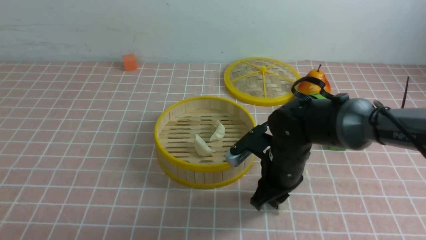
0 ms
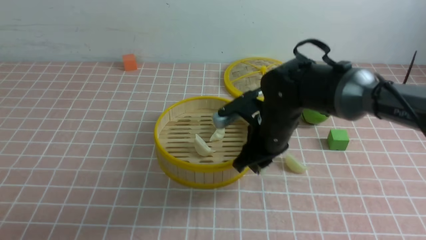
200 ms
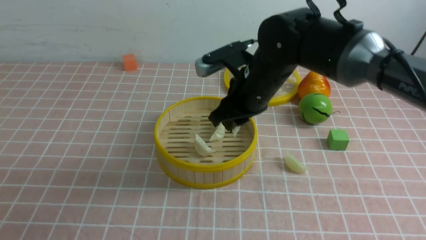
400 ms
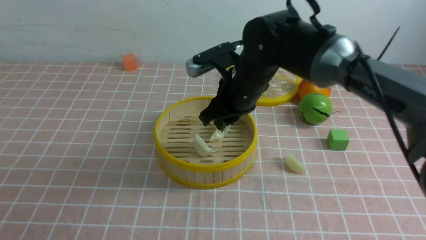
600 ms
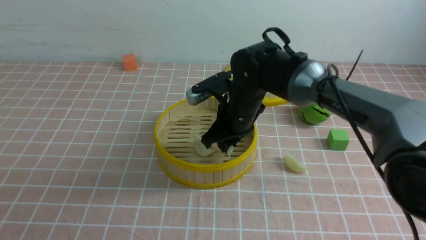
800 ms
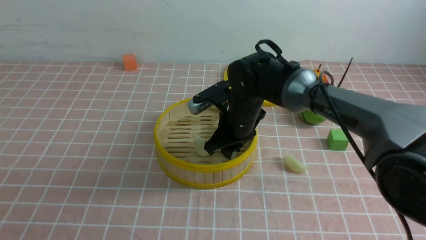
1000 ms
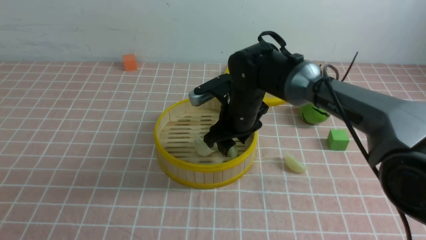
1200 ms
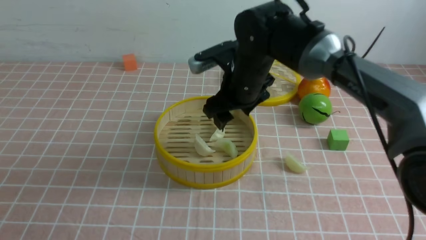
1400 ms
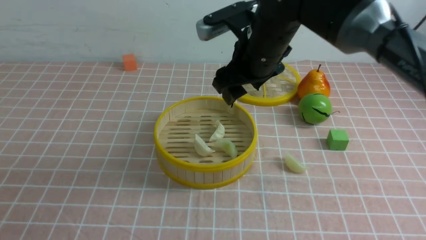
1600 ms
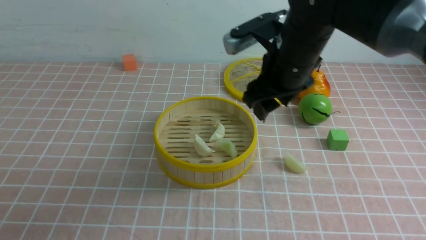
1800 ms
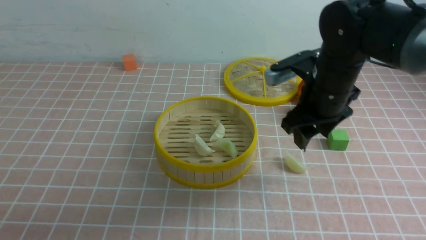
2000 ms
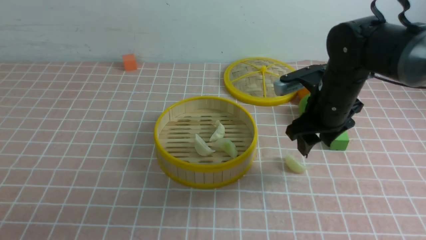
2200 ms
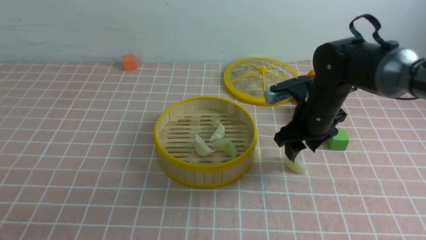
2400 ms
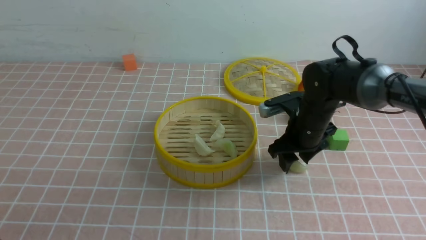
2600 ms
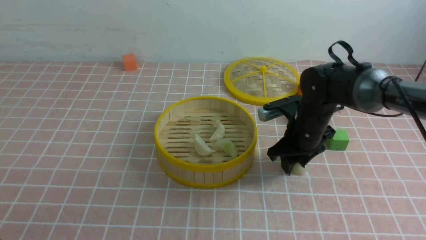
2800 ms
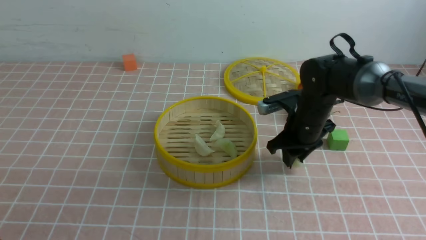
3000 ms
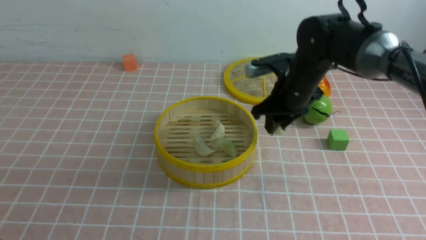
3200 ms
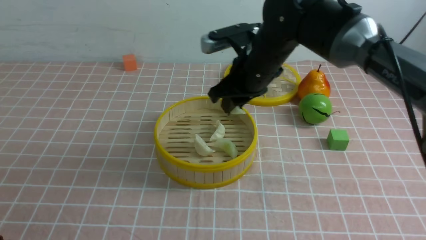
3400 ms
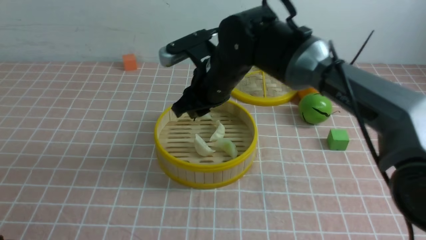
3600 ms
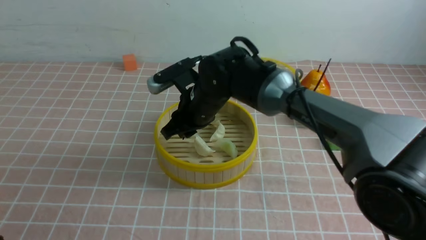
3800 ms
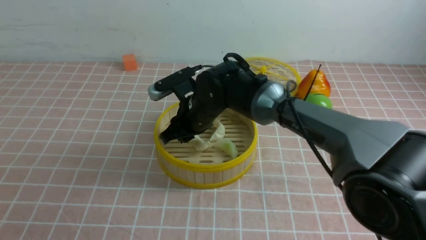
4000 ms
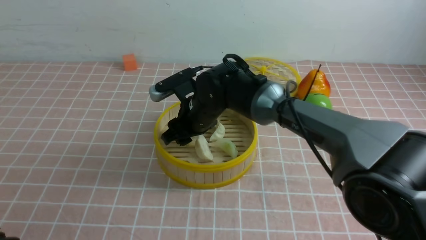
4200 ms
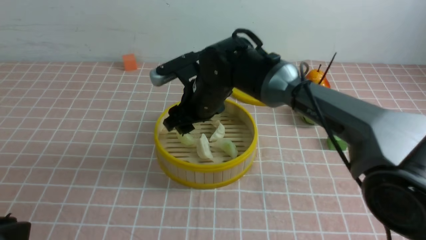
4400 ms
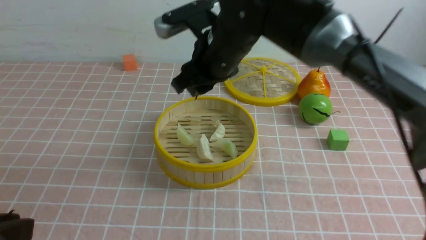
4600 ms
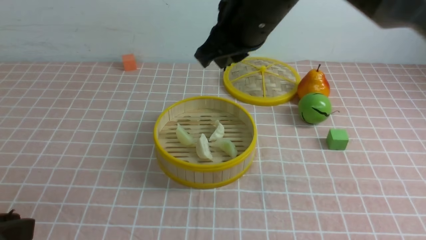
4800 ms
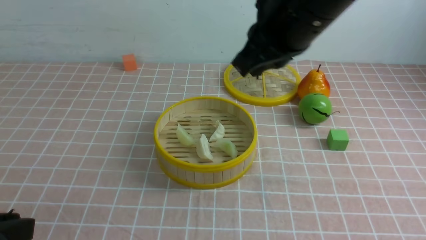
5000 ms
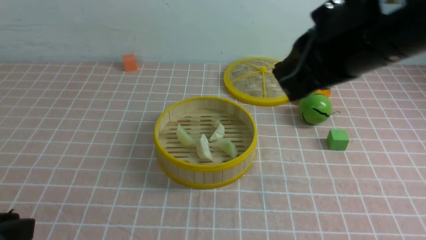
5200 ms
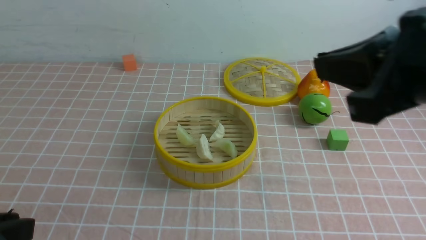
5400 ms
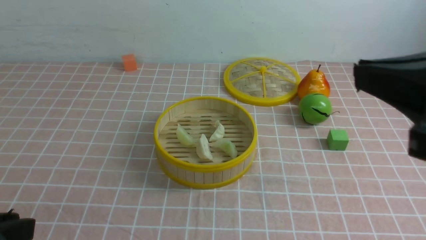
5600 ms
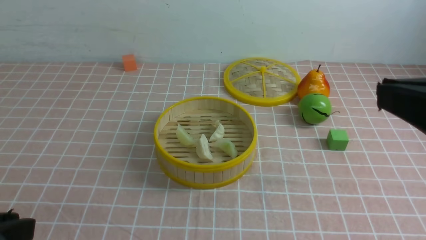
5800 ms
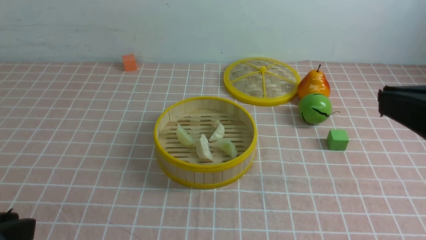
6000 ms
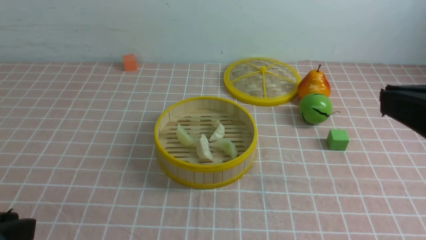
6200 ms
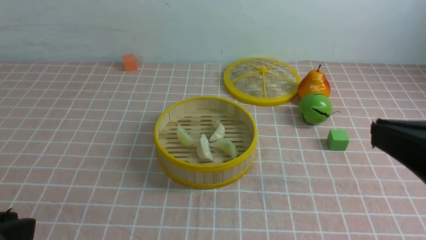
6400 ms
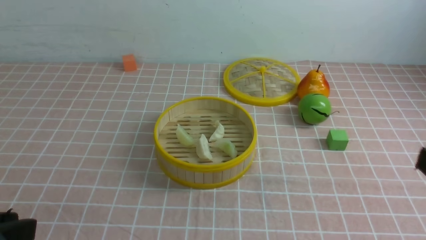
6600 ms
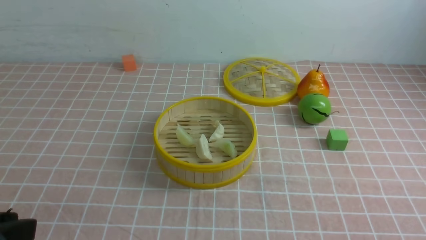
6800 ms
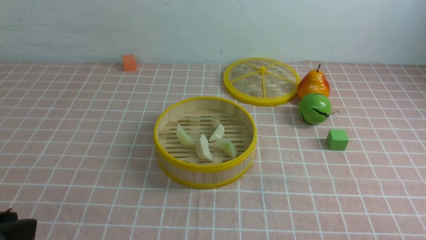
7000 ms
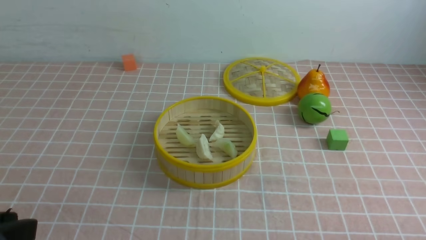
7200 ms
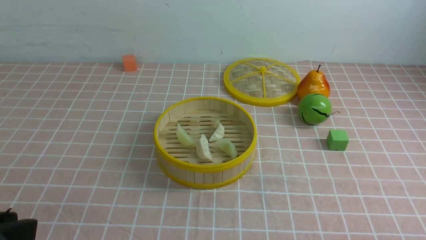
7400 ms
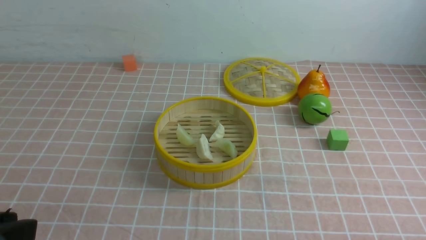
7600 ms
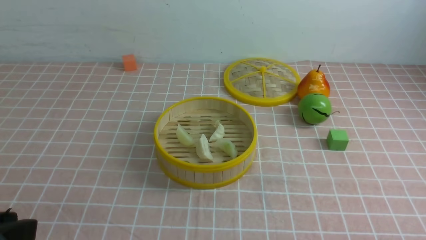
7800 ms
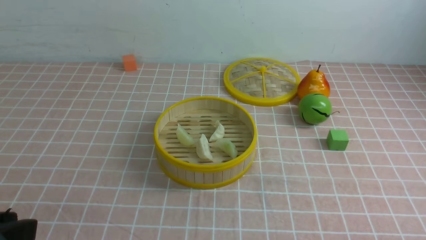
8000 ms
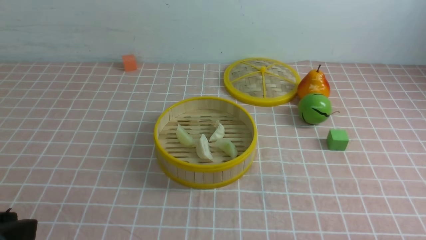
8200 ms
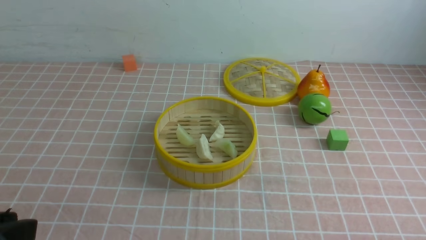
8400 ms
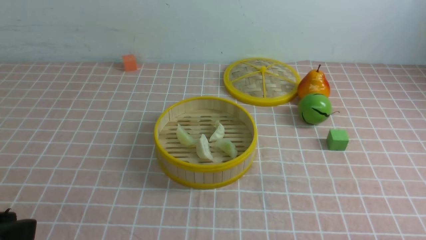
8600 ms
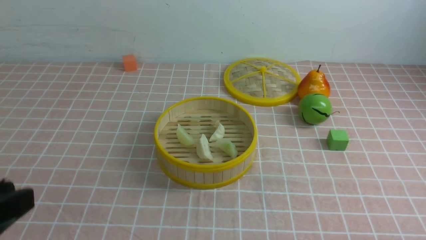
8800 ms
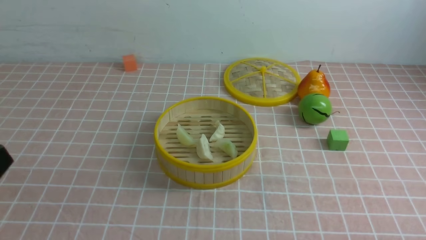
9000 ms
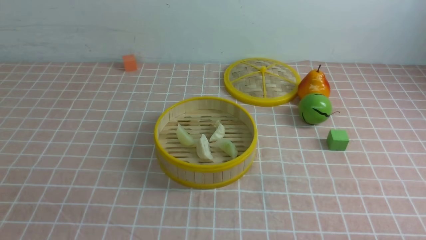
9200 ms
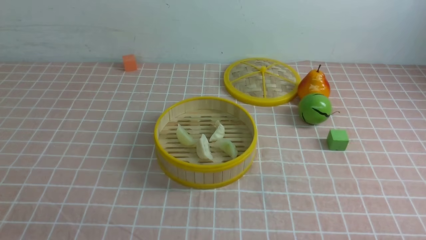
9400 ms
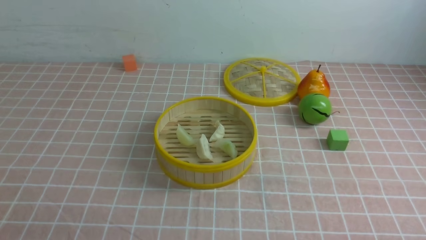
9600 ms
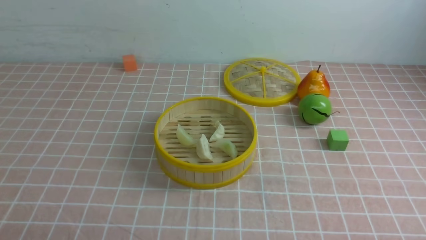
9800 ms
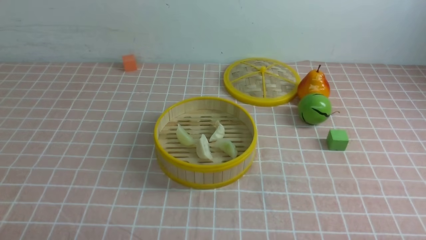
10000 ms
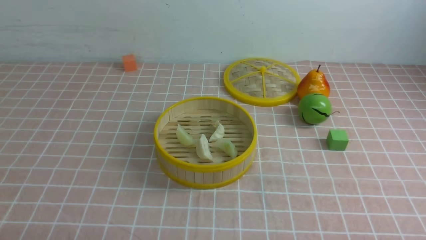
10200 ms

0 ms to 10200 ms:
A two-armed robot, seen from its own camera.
Task of the whole recording: put the dumplings into the steamer on the table with the pink tablecloth.
Step, 200 ms to 1200 ms: use the right arm to put the dumpling into the steamer.
Step, 1400 ms to 3000 ms: use the right arm to grab a dumpling.
Step, 3200 ms to 4400 ms: use the right arm to put the dumpling into the steamer.
0 ms to 1400 ms: The right gripper swings up and down, roughly 10 cm each way, with 2 reversals, and opens up.
1400 ms to 3000 ms: The right gripper is displaced to the right and downward by approximately 15 cm, and closes its fingers.
3000 ms to 4400 ms: The right gripper moves to the left and upward, about 15 cm.
4400 ms to 5800 ms: The right gripper is displaced backward, to the right and upward by some 40 cm, and closes up.
5800 ms to 7200 ms: The right gripper moves downward and to the right, about 25 cm.
7200 ms to 8800 ms: The grippers stay close to where they were, moving slightly.
8800 ms to 10200 ms: The left gripper travels downward by roughly 15 cm, and closes its fingers.

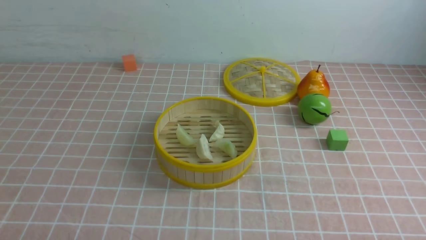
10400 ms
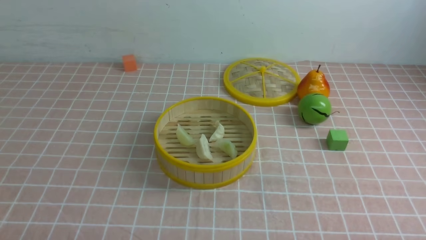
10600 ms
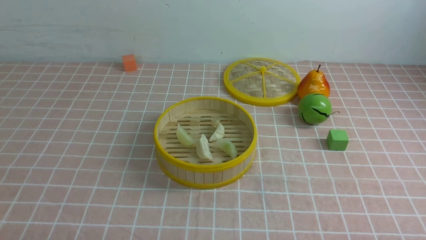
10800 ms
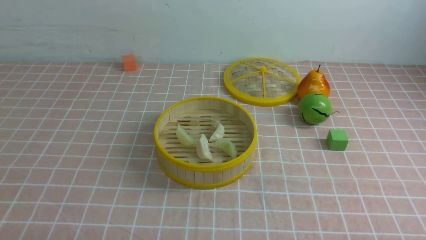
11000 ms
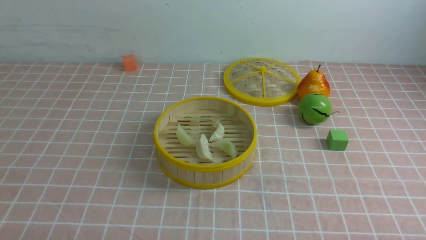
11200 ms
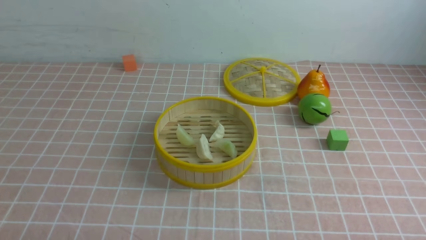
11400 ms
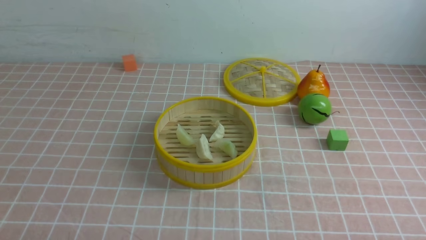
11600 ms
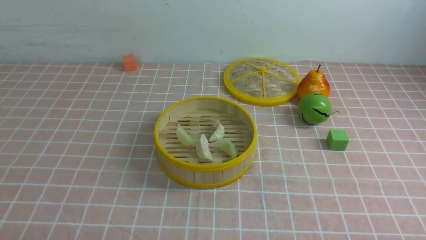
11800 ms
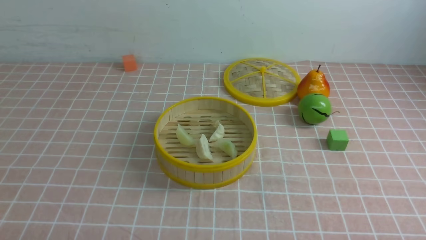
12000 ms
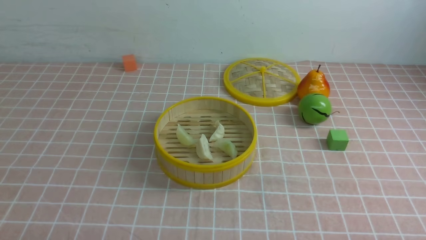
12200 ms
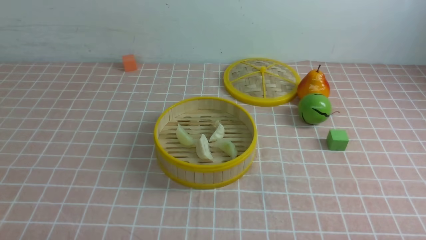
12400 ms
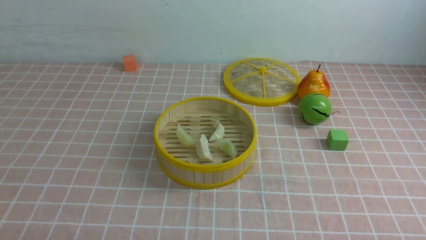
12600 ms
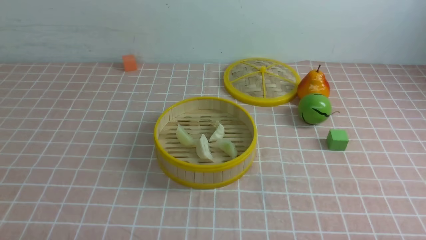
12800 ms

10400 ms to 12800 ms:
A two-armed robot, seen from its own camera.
Task of the whole recording: put the dumplings into the steamer on the table with the pink tablecloth.
10400 ms to 12800 ms: Both grippers stay put.

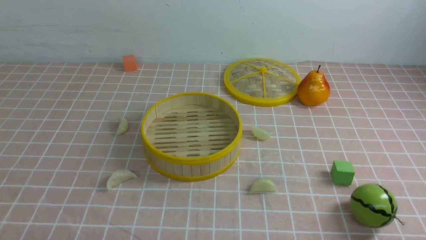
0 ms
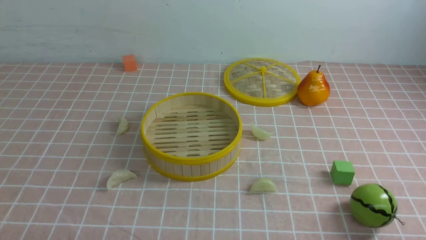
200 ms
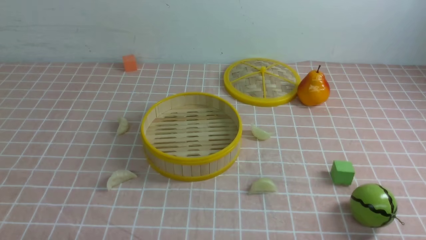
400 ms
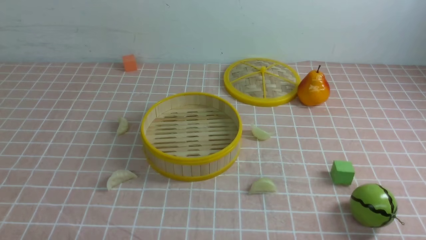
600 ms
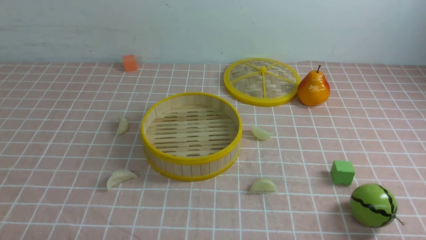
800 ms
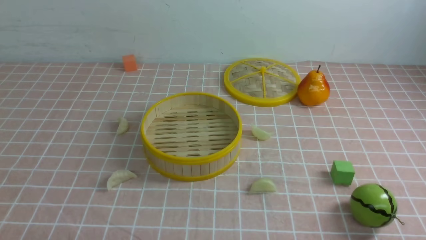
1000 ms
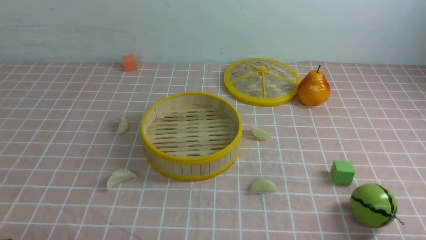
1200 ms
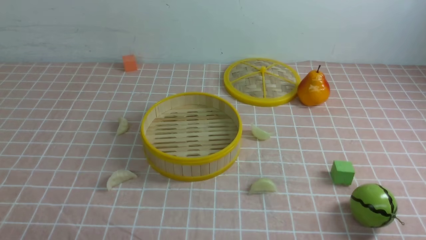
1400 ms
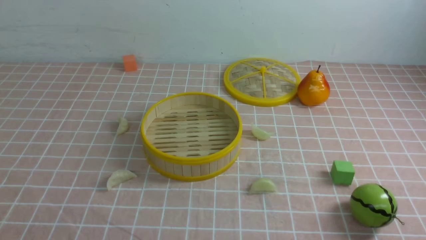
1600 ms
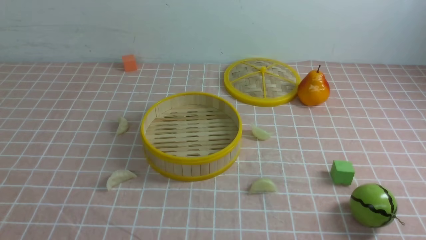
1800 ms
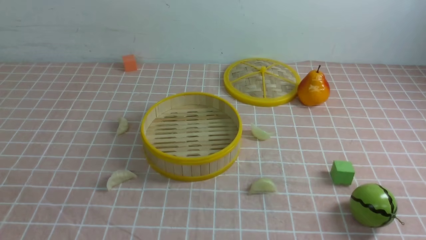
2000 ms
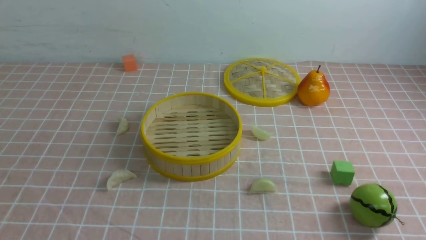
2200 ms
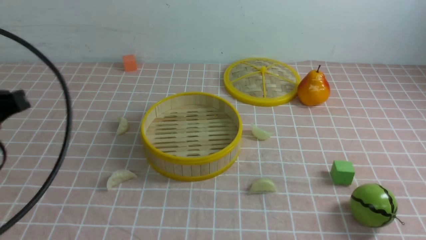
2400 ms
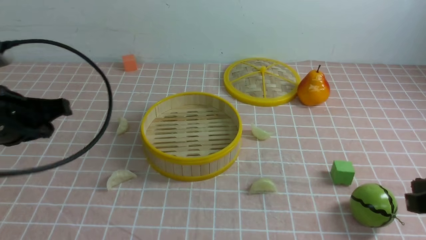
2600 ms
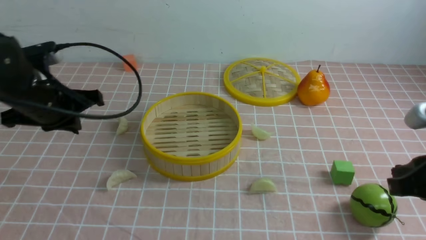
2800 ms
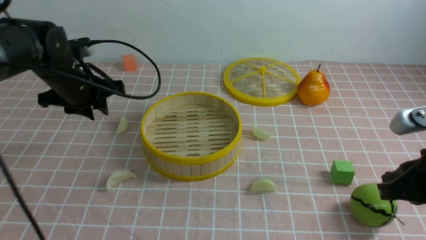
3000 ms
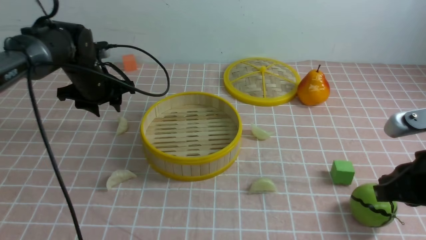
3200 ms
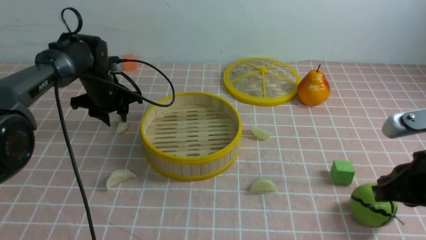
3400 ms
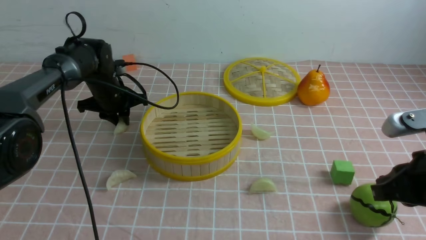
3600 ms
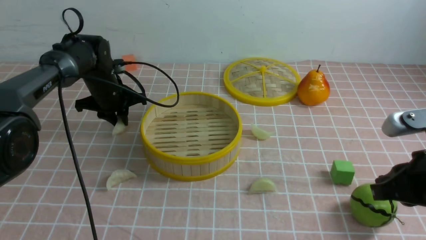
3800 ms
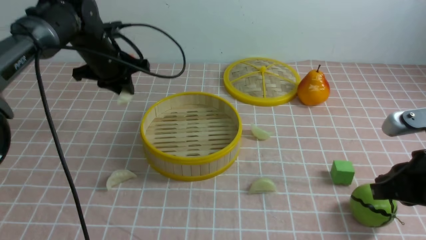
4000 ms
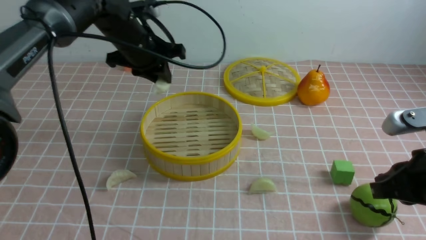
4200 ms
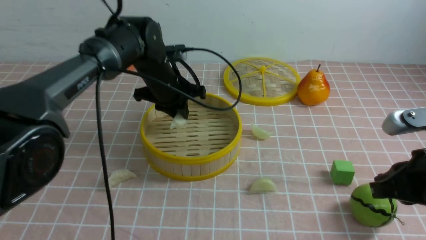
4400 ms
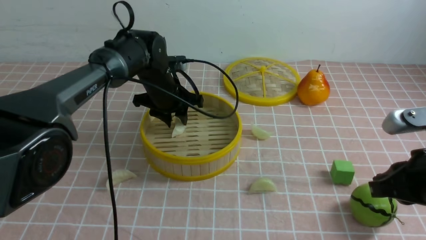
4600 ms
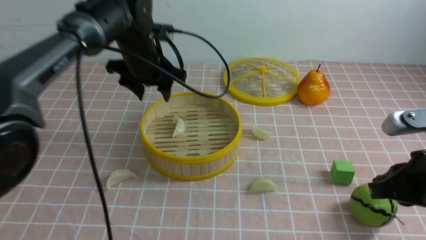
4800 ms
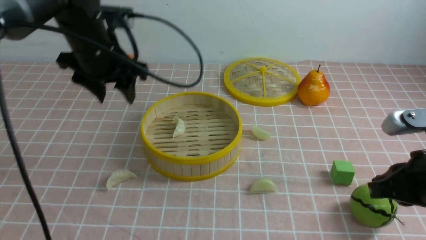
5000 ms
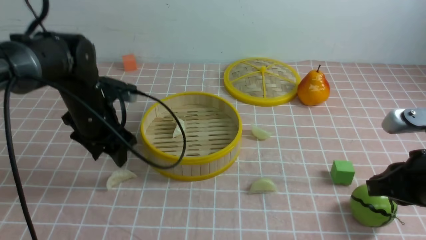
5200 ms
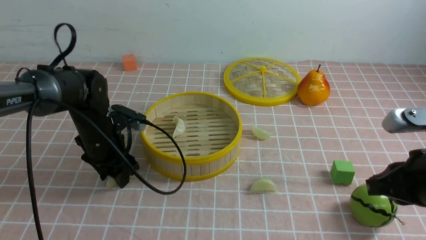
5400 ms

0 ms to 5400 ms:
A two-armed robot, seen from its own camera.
Task of the whole recording: put the dumplings into the steamer on the table with the pink tablecloth.
Step, 0 ms to 3800 ms: use the left arm to grab a dumpling.
Step, 4000 ms to 4600 ms: use the left arm to put the dumpling into the steamer.
1400 ms to 2800 ms: The left gripper moves forward, about 30 cm; the right gripper is displaced forward and upward by approximately 15 cm, and closes.
2800 ms to 4000 ms: The left gripper moves forward and to the right, about 15 cm, and opens, then closes once more.
4000 ms to 5400 ms: The left gripper goes roughly 15 cm backward and downward, and opens.
